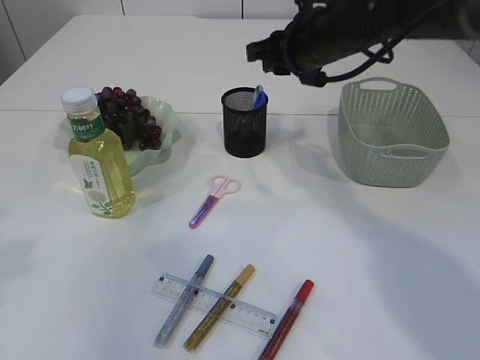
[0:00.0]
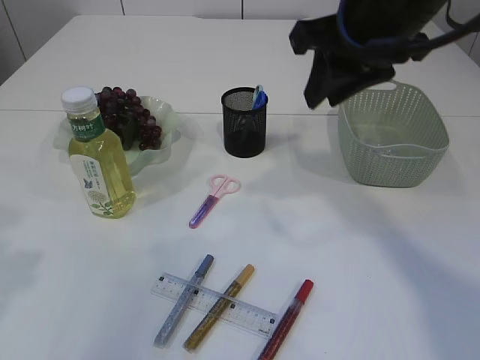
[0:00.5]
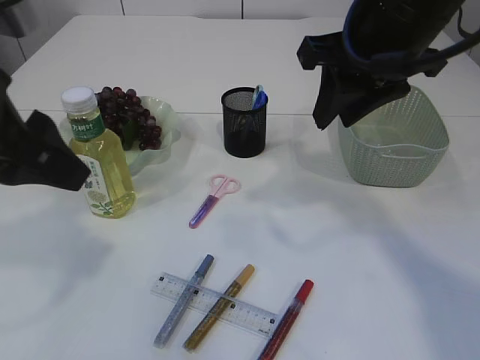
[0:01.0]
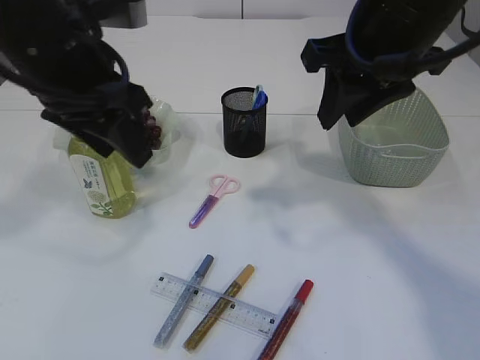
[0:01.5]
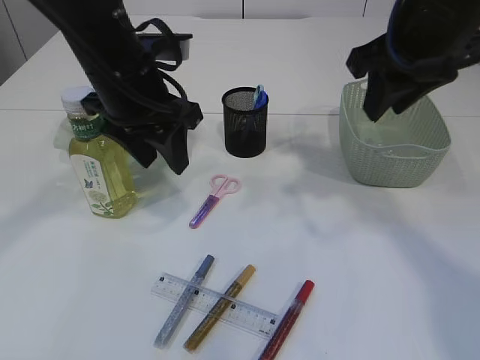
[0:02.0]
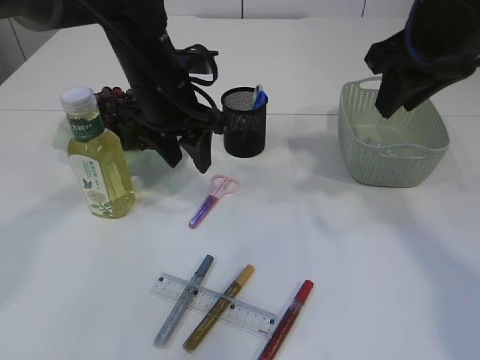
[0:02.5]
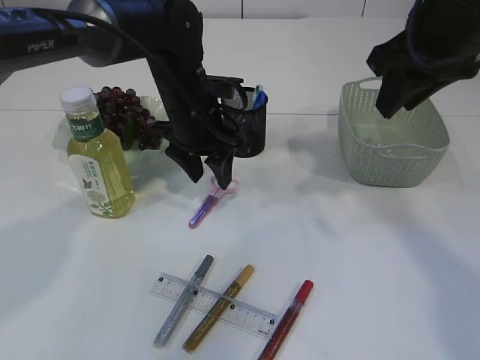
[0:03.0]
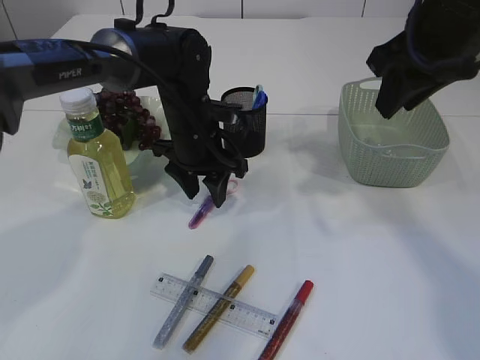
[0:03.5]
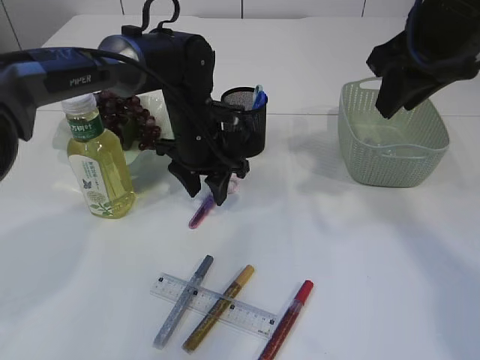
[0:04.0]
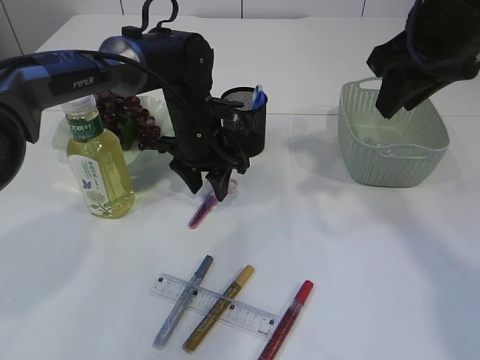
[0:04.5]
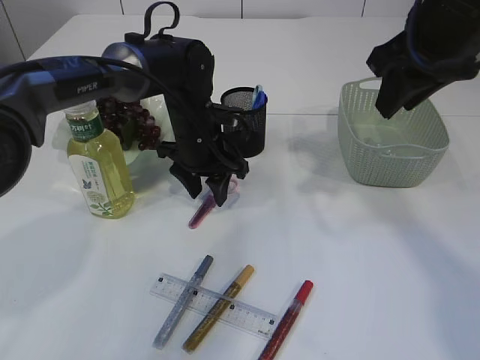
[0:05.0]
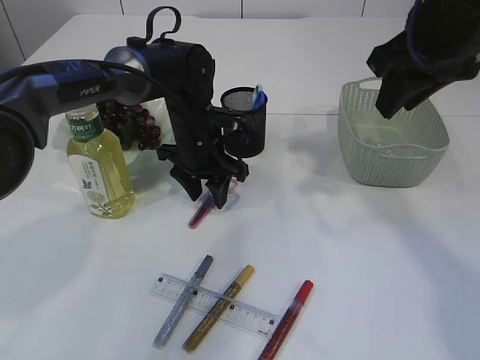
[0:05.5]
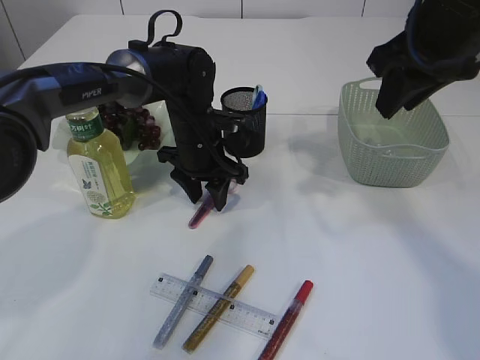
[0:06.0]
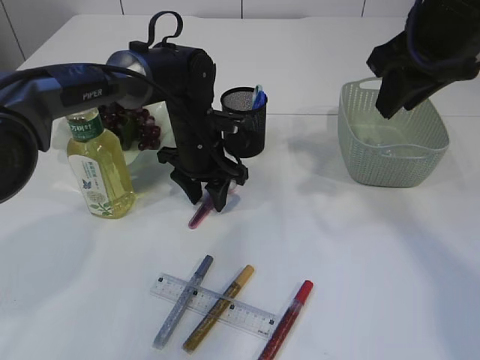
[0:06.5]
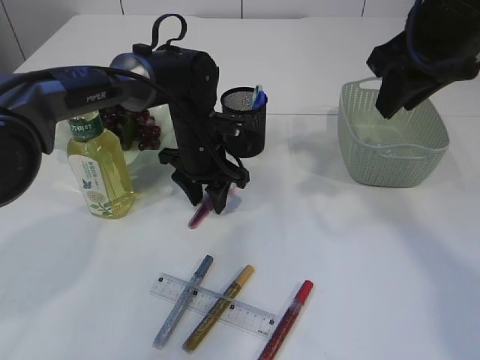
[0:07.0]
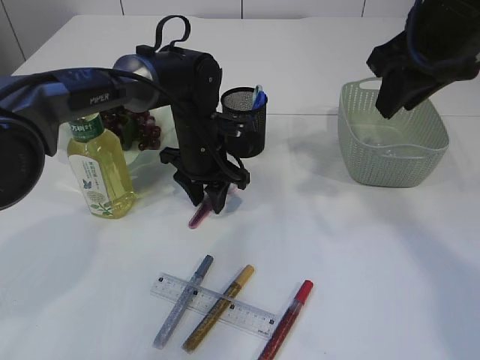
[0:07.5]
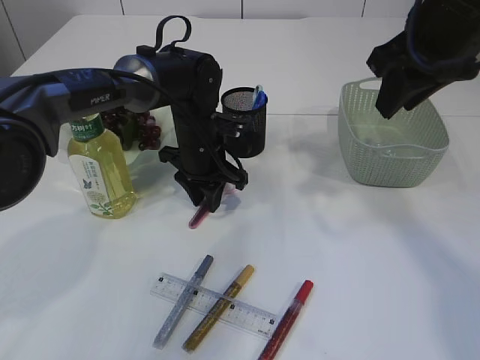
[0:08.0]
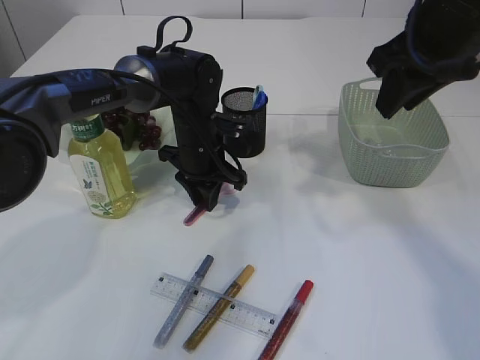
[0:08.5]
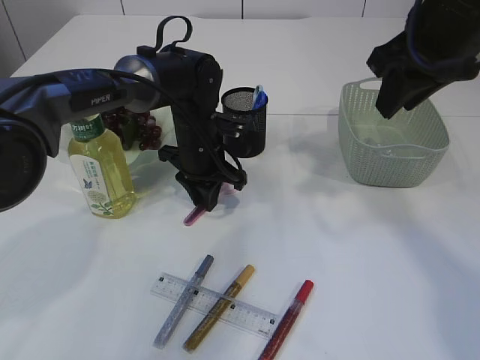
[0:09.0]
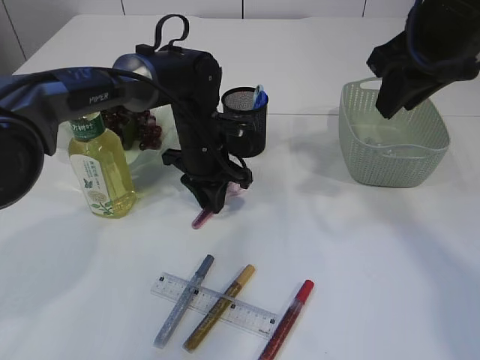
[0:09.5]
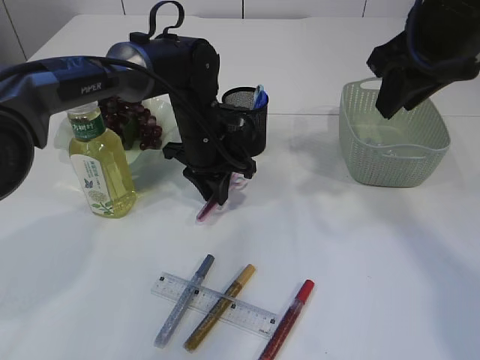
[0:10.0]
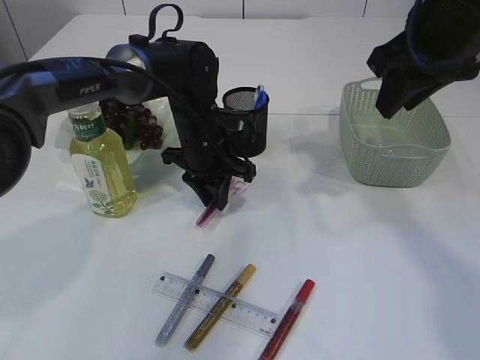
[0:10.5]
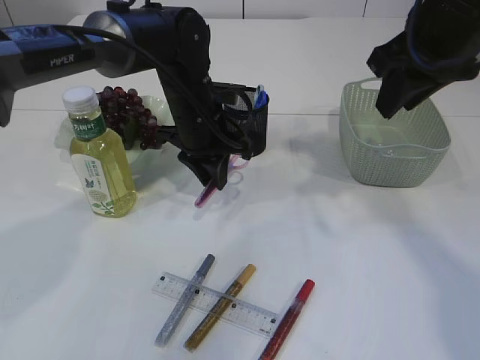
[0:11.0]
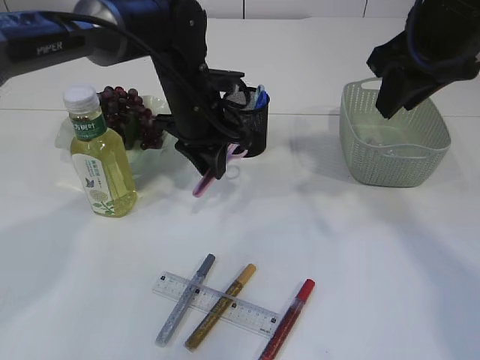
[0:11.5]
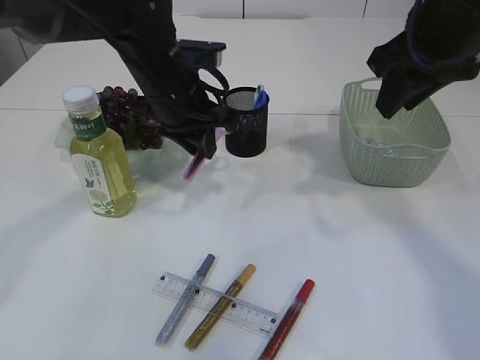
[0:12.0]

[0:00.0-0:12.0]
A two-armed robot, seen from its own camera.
Step, 0.0 to 11.5 s: pick up the pink scissors.
0.0 to 2.0 s: The left gripper is displaced forward and to the right by about 25 cm. Meanwhile the right gripper is displaced backward, upward and to the right by some 15 cm.
2.0 to 4.0 s: The left gripper travels downward, forward and to the right by about 15 cm.
4.0 to 6.0 s: The grippers move only a little.
6.0 to 8.0 s: Neither gripper changes place.
8.0 to 10.0 s: The grippers make only small movements.
10.0 to 12.0 s: The left gripper heads upward, covering some 10 cm.

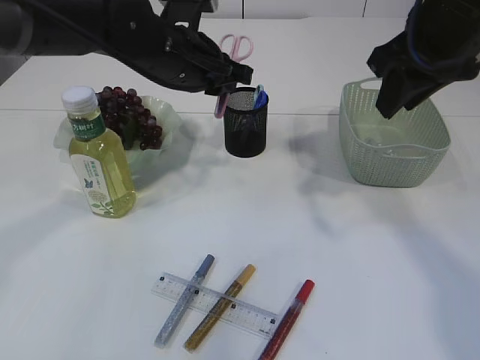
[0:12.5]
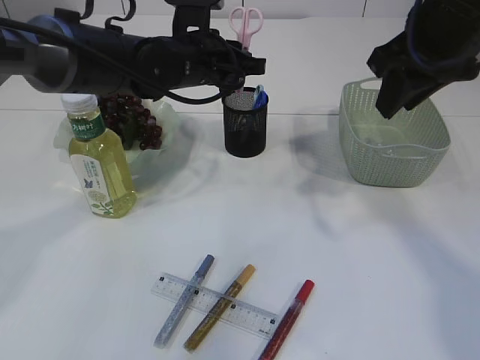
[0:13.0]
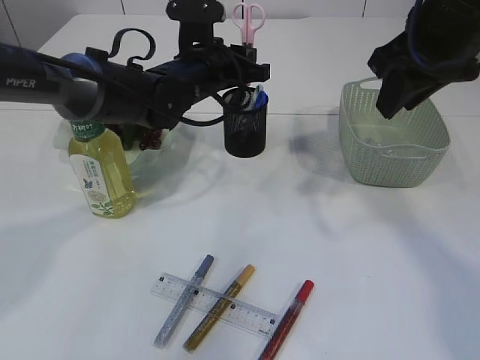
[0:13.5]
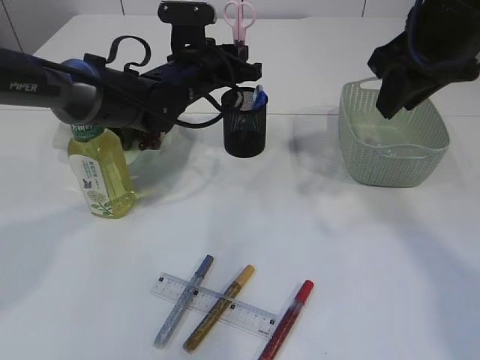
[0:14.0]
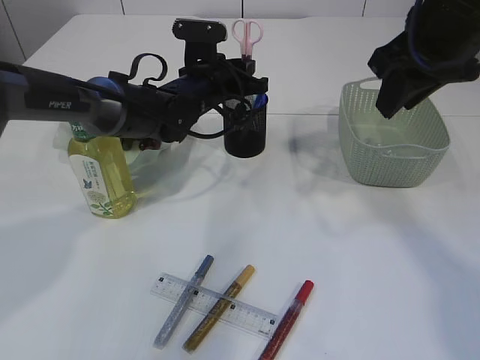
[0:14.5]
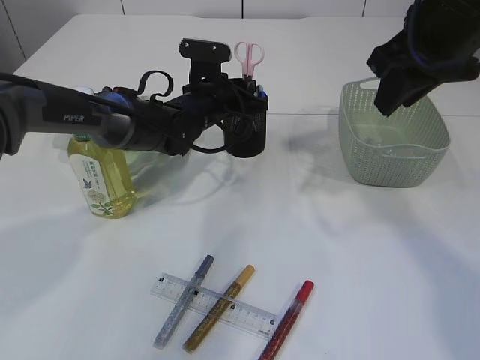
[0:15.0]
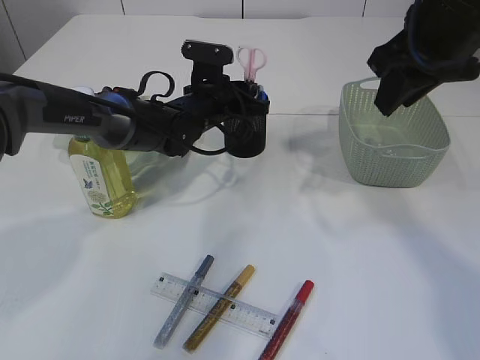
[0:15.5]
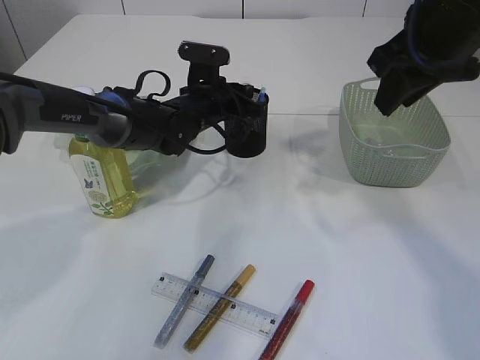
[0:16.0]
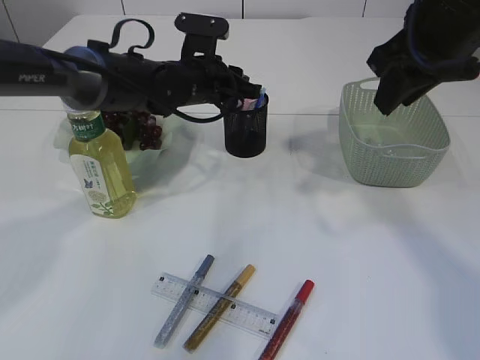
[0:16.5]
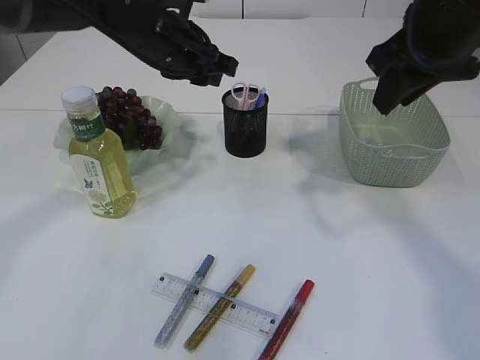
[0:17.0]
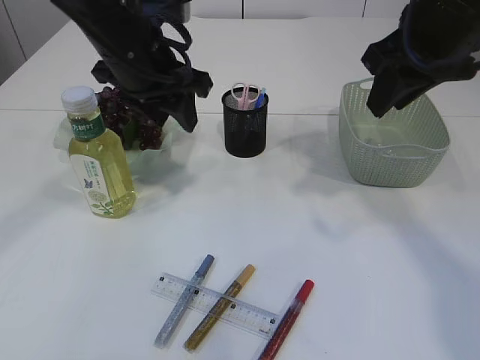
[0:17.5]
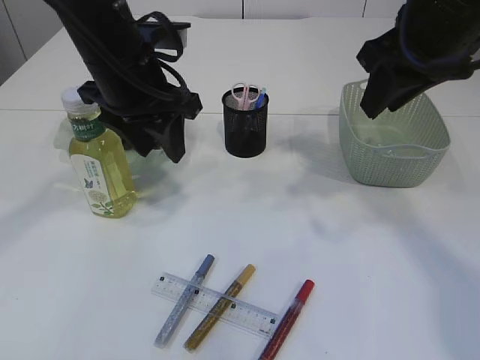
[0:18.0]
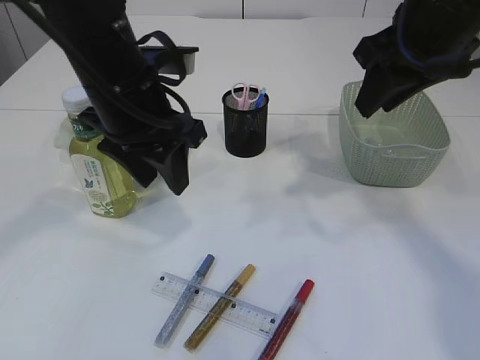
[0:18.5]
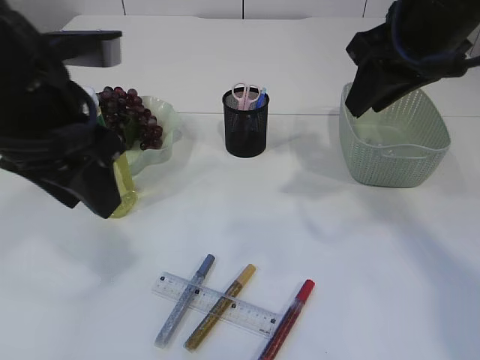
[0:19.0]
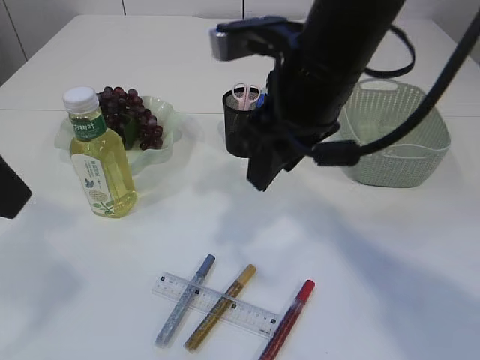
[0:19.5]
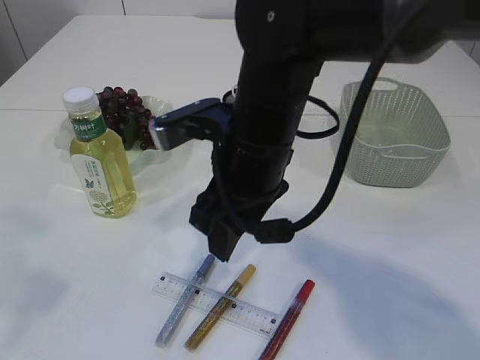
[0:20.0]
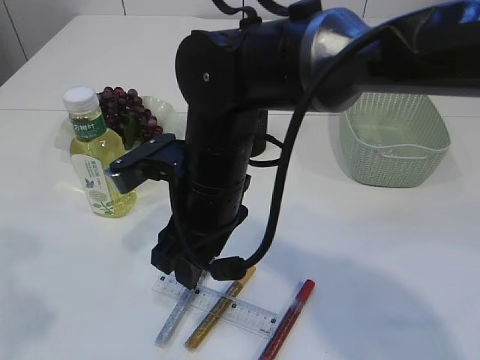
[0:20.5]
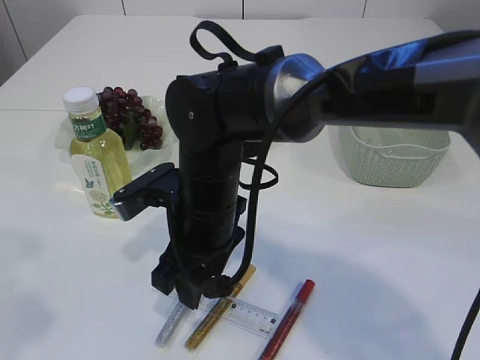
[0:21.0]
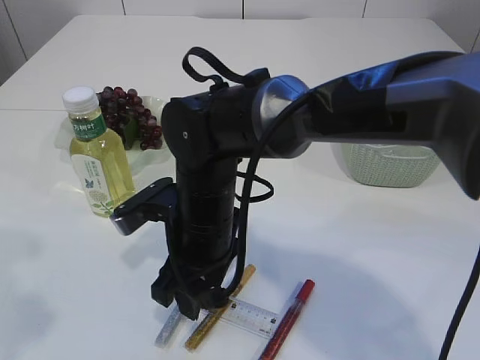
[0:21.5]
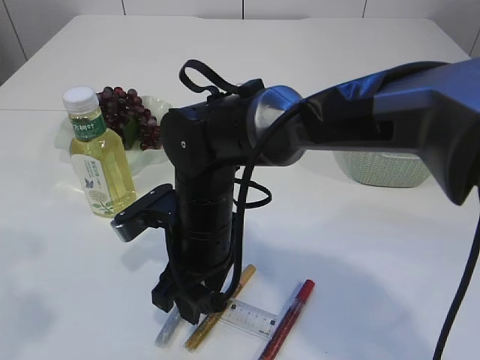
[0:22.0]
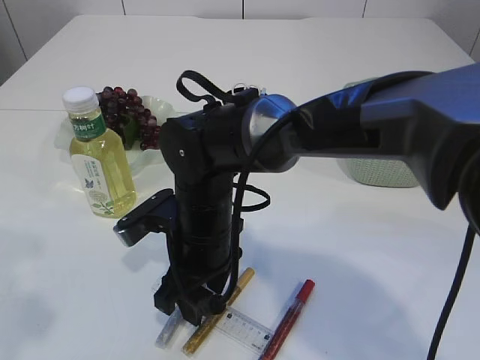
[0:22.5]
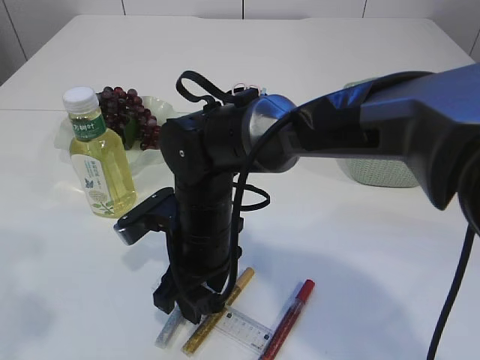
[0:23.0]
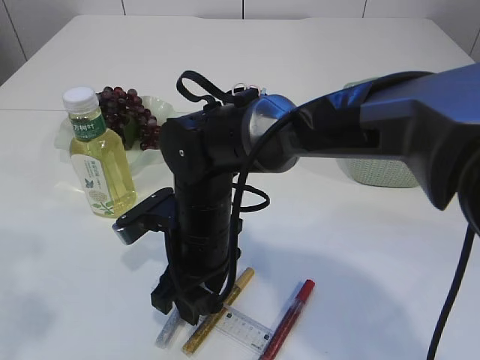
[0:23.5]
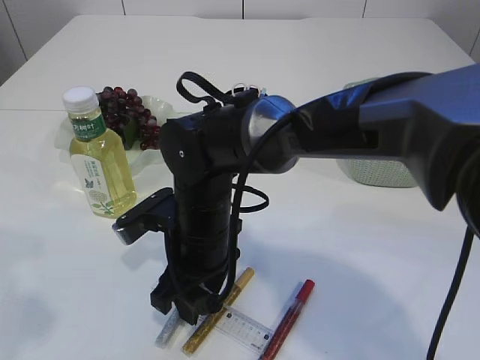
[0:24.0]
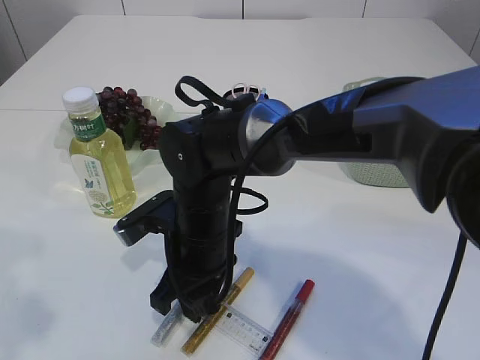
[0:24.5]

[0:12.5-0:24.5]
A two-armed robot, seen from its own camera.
Step, 12.5 to 17.0 s: Place the pink scissors into the pen holder.
12.5 to 14.5 s: The left gripper is displaced downward and forward by approximately 10 cm.
14.5 to 16.5 s: There are only small adjustments of the grippers.
16.5 to 18.5 s: The left gripper goes about 15 cm backward and upward.
18.5 to 20.5 s: The left gripper shifts approximately 25 cm backward, to the left and upward. Meanwhile the right gripper travels to the left and downward by about 25 cm.
20.5 to 22.5 s: The right gripper shifts roughly 10 cm downward.
22.5 to 24.5 s: The two grippers keep their place.

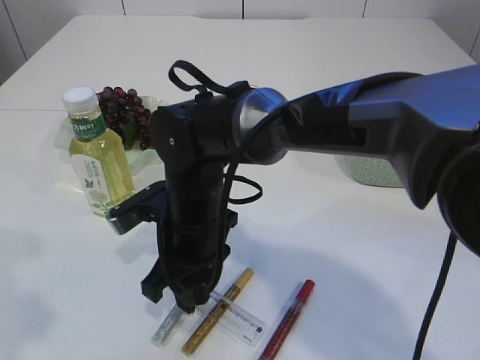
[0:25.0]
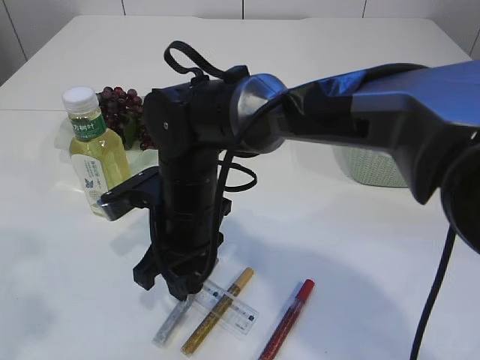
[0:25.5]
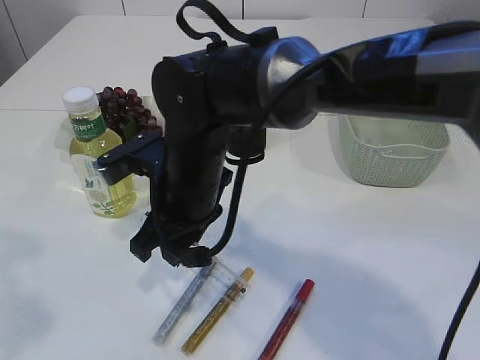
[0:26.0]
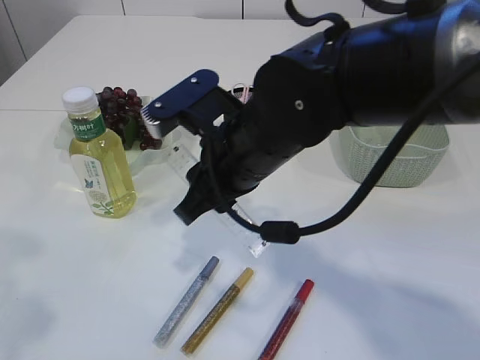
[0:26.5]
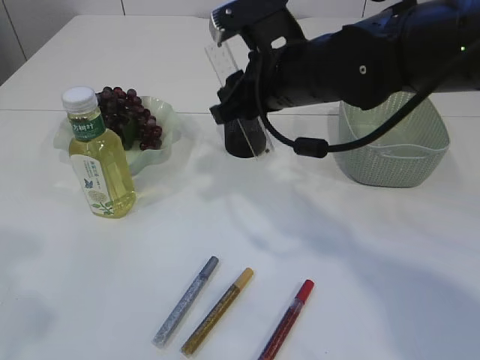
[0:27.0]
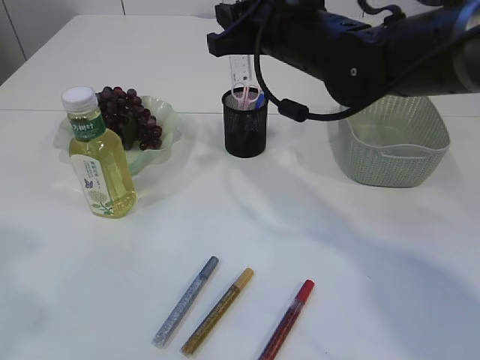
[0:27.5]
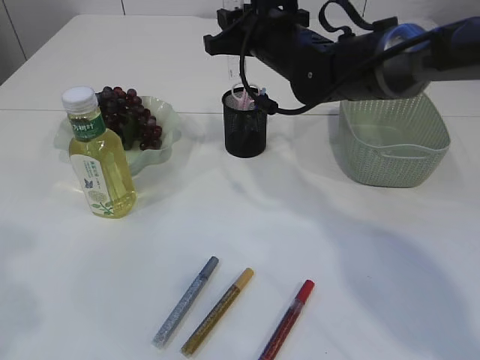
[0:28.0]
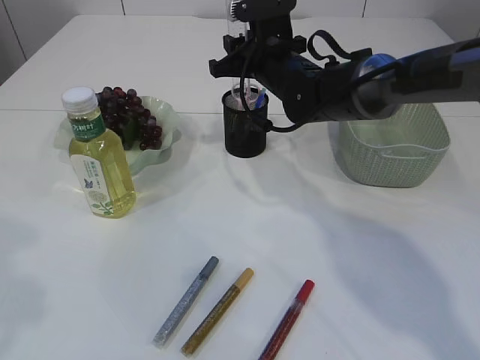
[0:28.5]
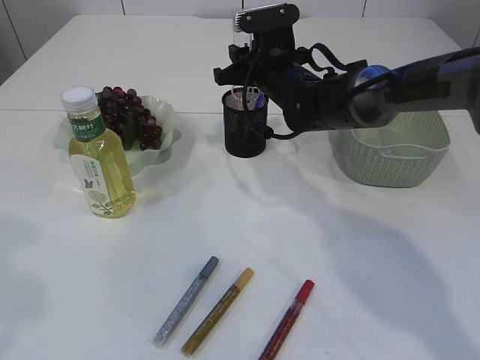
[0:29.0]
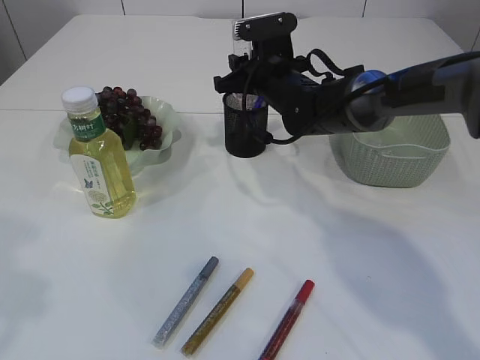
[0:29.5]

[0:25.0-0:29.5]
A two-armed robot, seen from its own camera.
25.0 to 27.0 s: The right gripper heads upward, to the right and forward, covering about 15 cm.
27.0 to 29.5 s: The right gripper is displaced forward and downward by approximately 15 cm.
